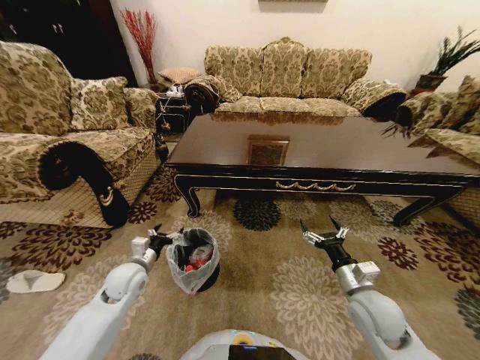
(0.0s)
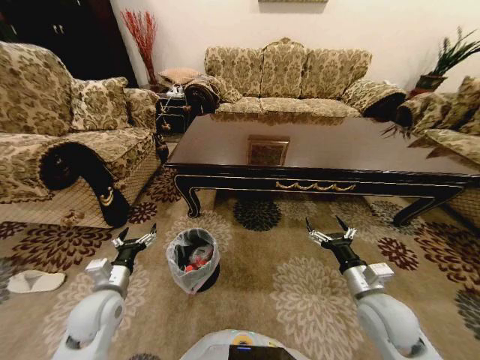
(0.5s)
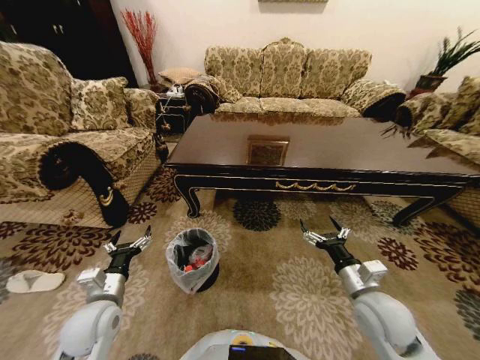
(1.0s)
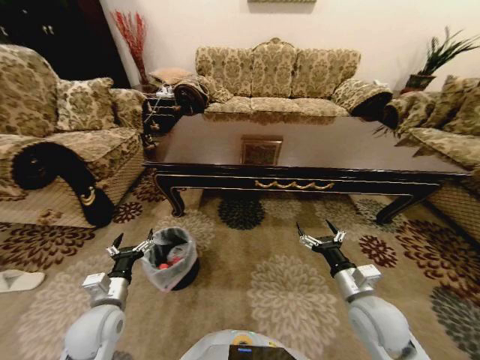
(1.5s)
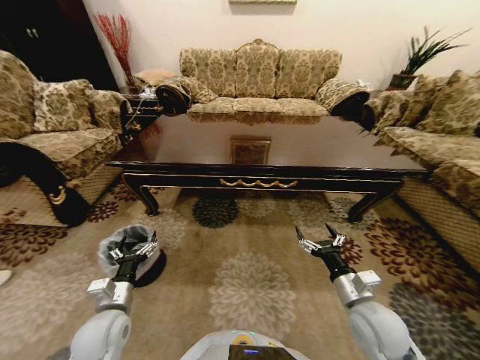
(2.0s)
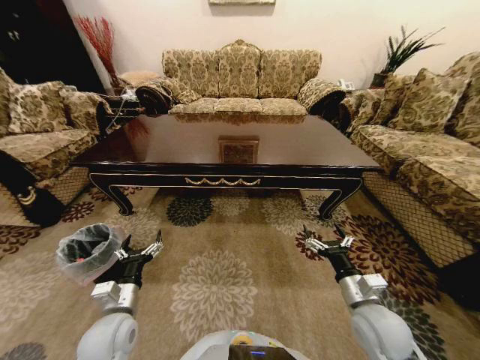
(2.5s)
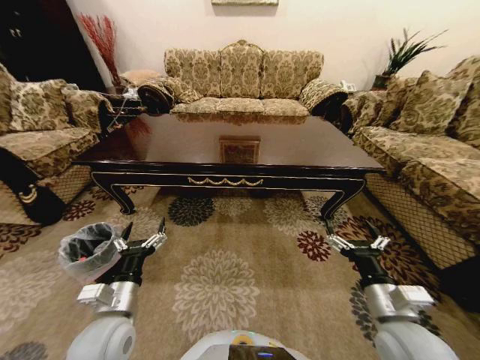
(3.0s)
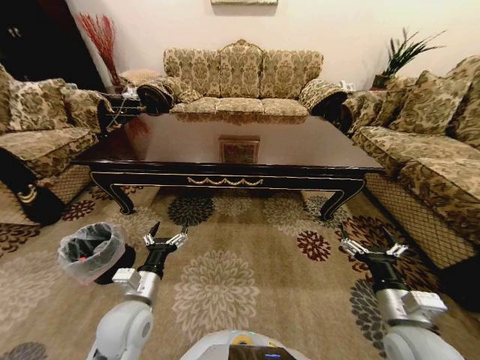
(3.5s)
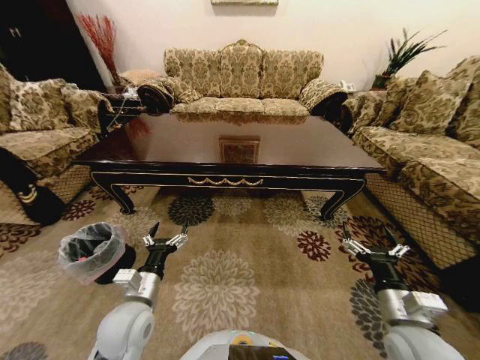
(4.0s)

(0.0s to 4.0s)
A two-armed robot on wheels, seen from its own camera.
Task of the whole recording: Move to the front of the table and place the trash on the table into the trash bin.
0.0s - 2.0s: The left gripper is displaced backward by approximately 10 cm.
2.0s - 4.0s: The left gripper goes approximately 5 cm to the right. The right gripper changes place by some 5 cm.

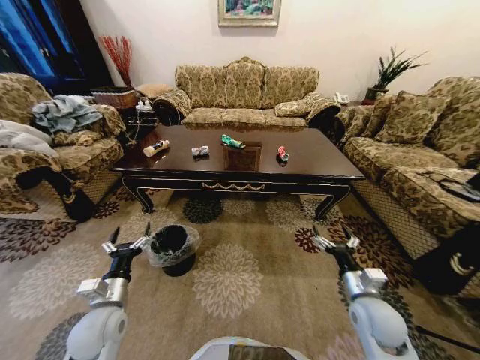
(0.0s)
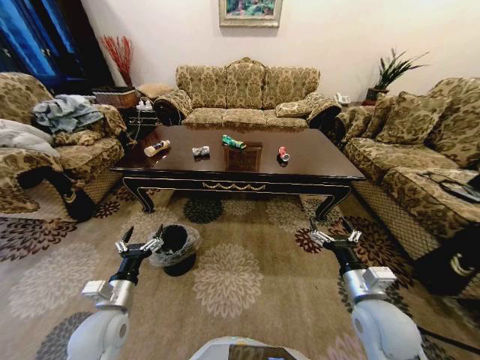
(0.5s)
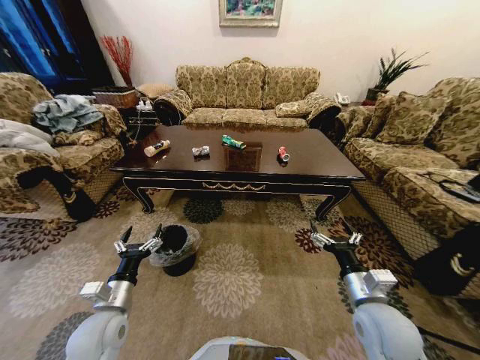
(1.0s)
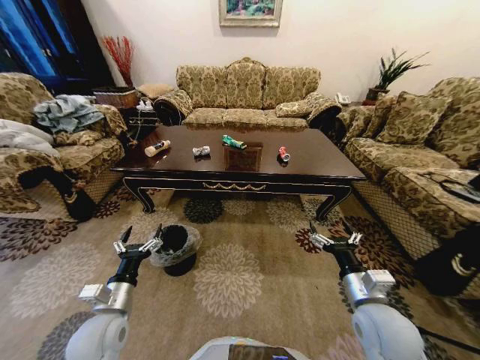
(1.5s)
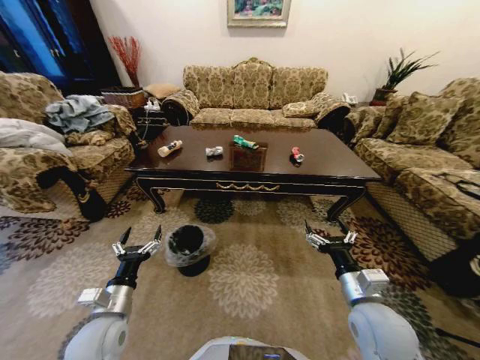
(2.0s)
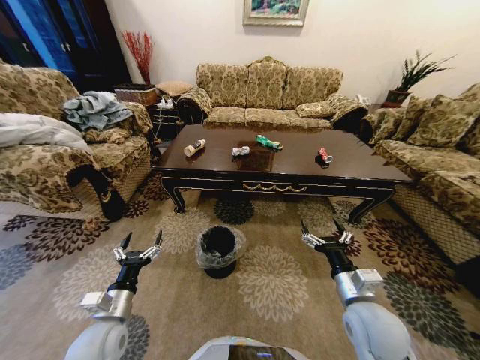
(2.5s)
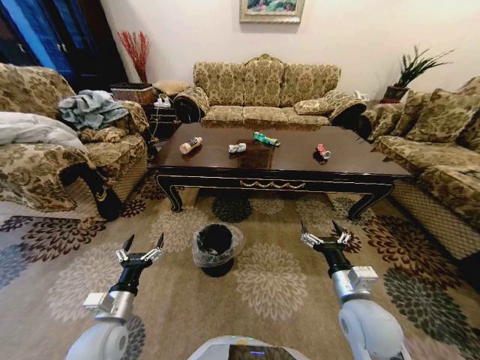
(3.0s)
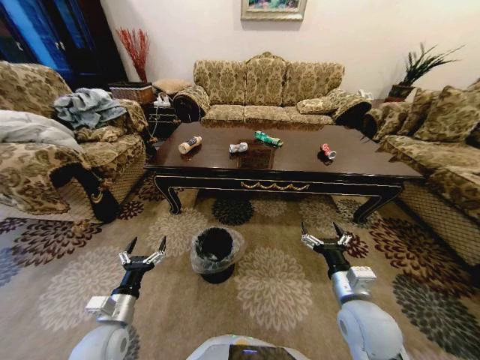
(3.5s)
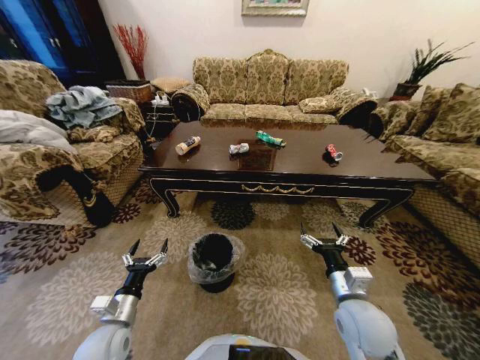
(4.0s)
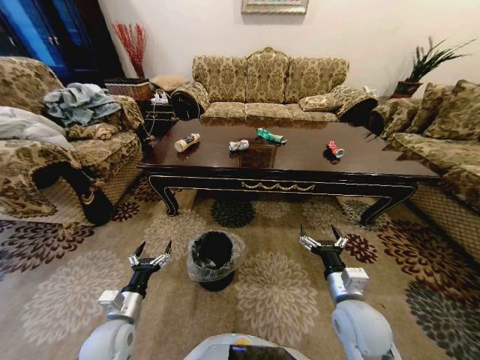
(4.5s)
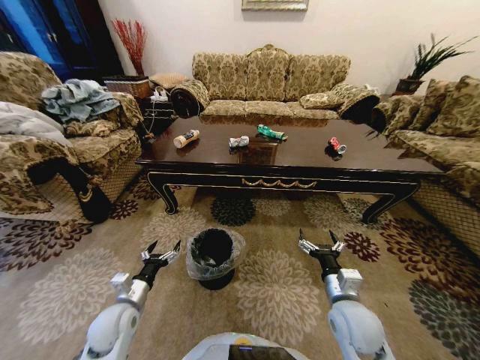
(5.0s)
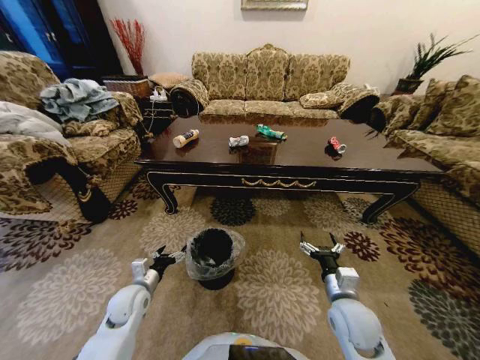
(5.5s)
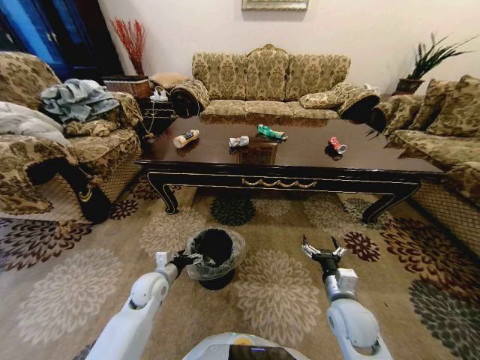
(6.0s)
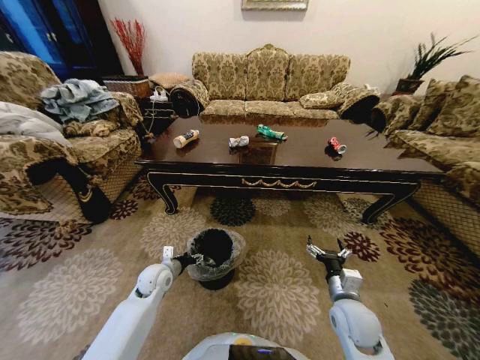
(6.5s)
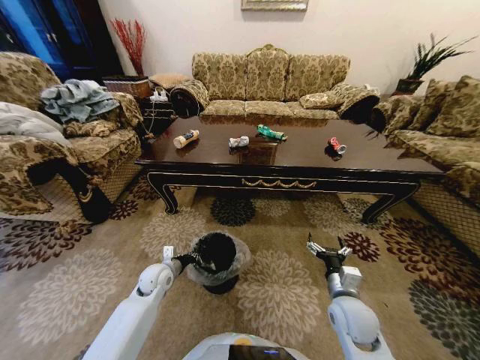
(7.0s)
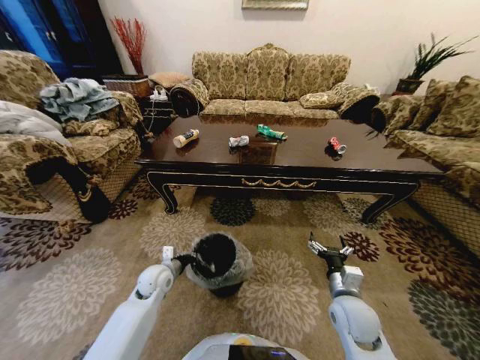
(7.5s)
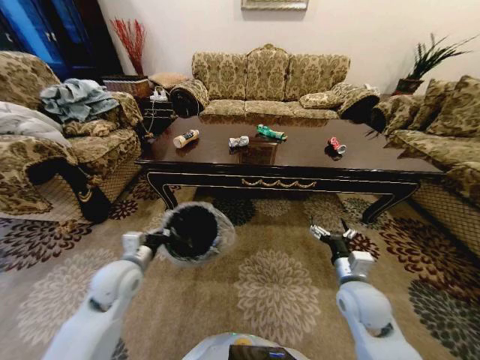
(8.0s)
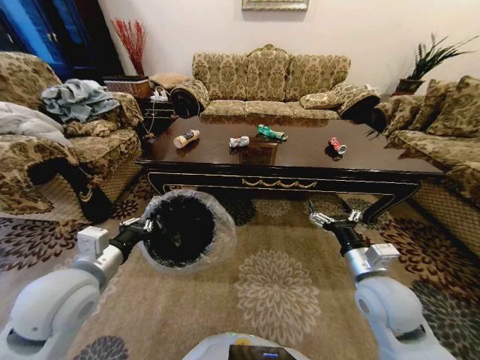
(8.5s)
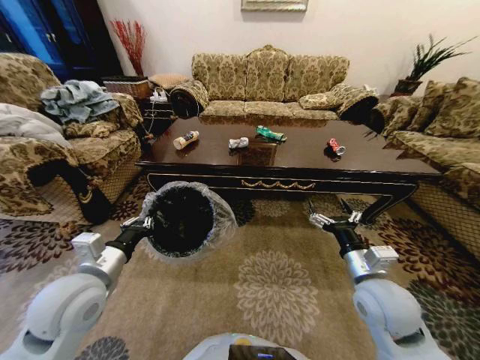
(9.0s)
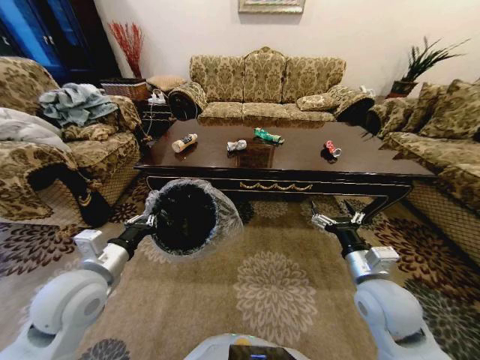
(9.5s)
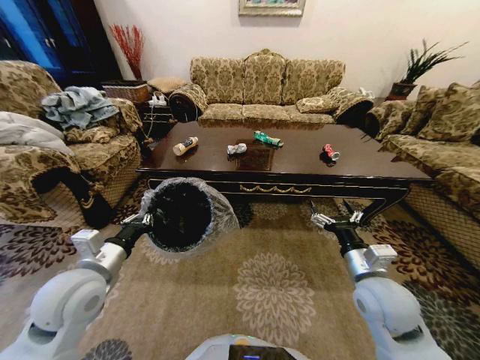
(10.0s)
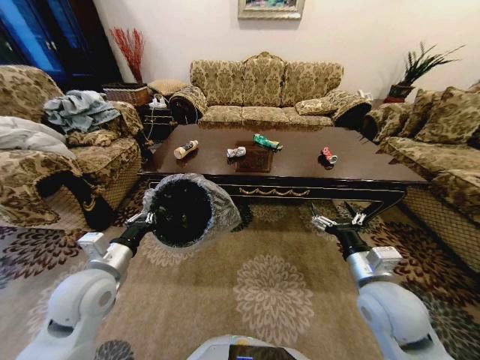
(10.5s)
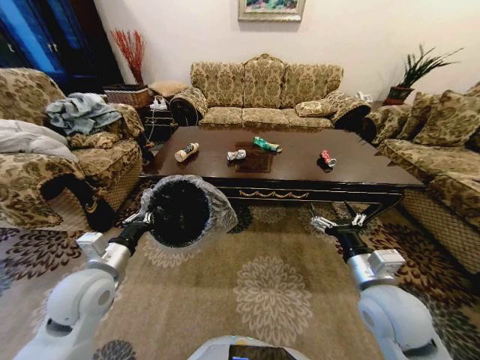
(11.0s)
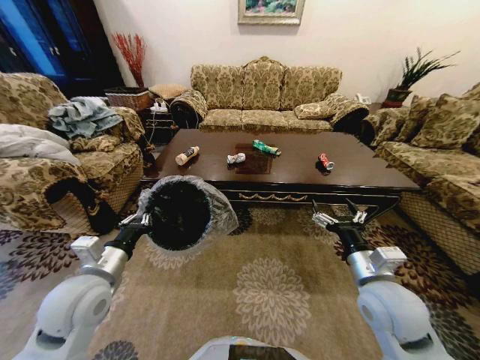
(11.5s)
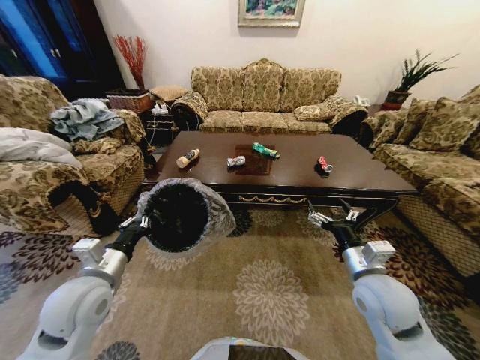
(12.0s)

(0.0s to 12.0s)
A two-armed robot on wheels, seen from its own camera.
Task of the whole recording: Move to the front of the table and place the trash on the table into the trash bin.
4.0s - 6.0s: The right gripper travels downward by approximately 5 cm; the left gripper heads forward, covering some 15 cm.
6.0s - 8.0s: The right gripper travels upward by roughly 5 cm. The left gripper heads upward, covering roughly 15 cm, and closes.
8.0s - 10.0s: The left gripper is displaced upward and backward by some 10 cm. The right gripper moves upward, roughly 5 cm.

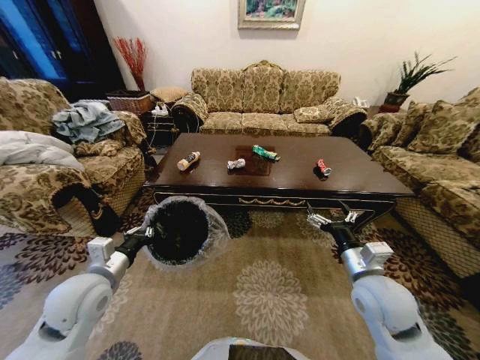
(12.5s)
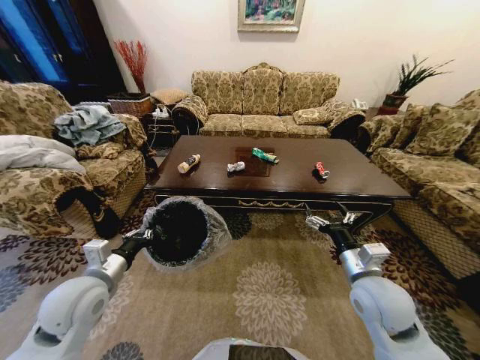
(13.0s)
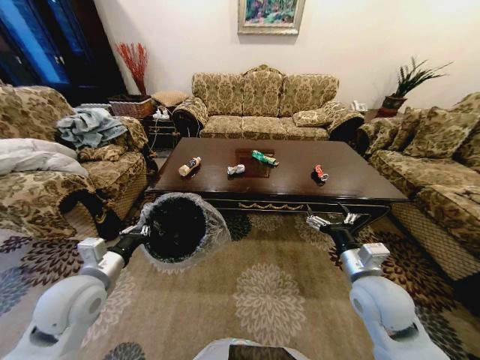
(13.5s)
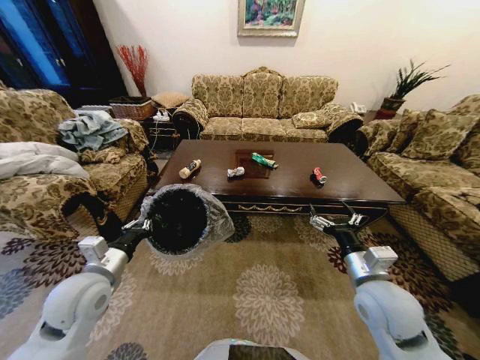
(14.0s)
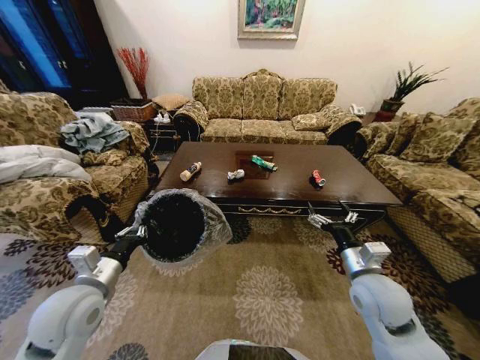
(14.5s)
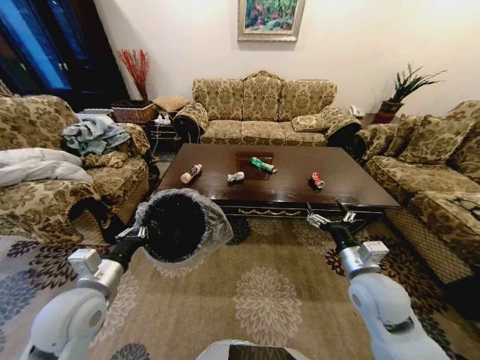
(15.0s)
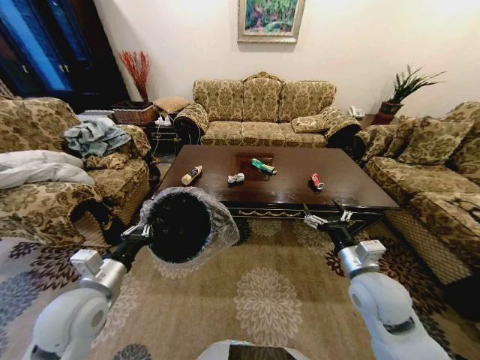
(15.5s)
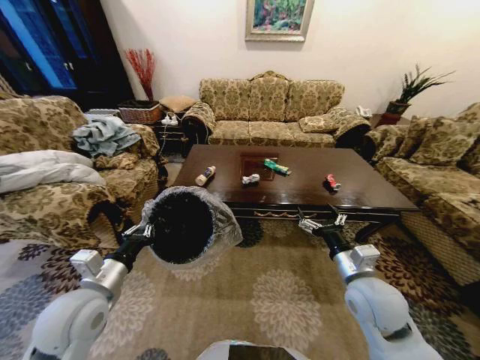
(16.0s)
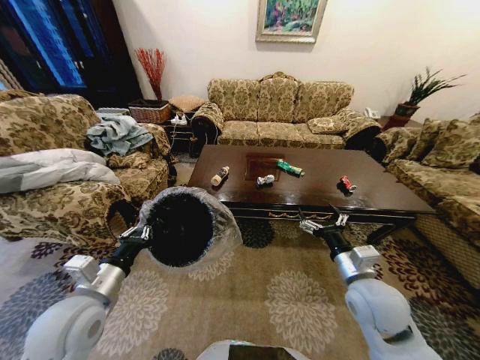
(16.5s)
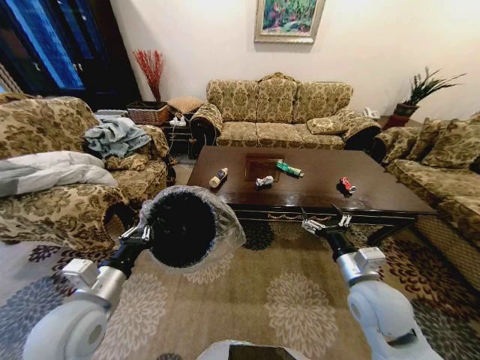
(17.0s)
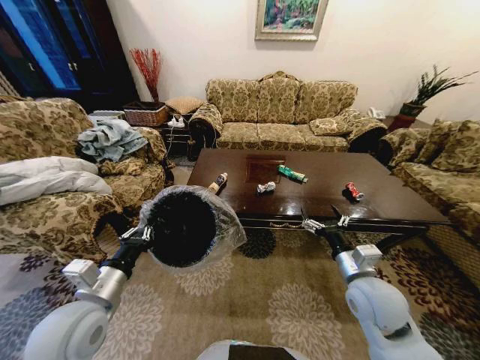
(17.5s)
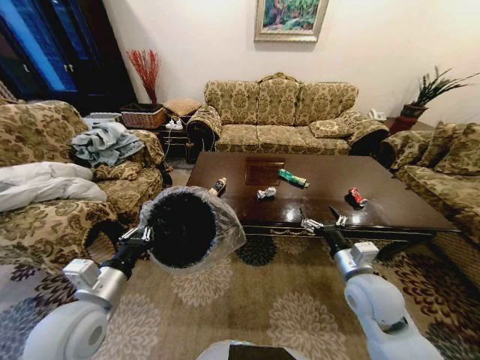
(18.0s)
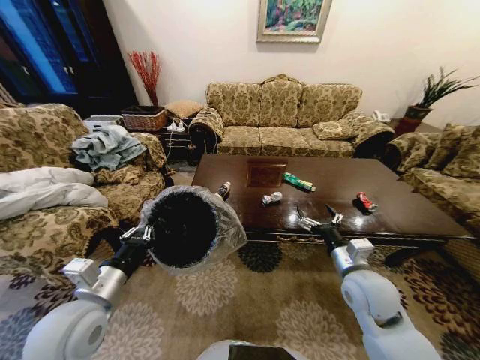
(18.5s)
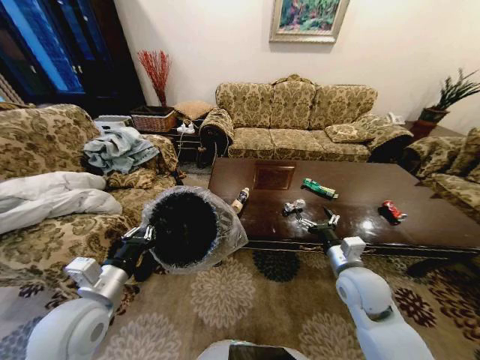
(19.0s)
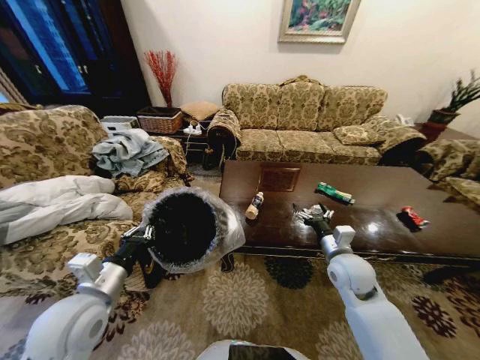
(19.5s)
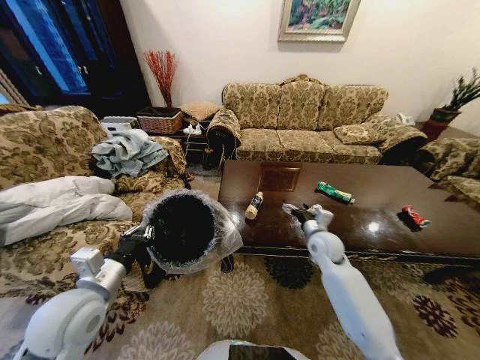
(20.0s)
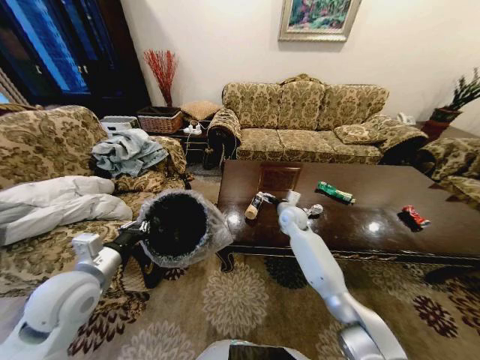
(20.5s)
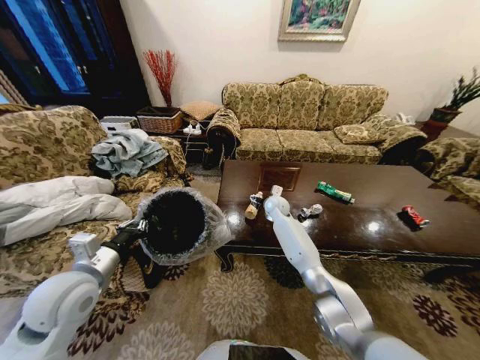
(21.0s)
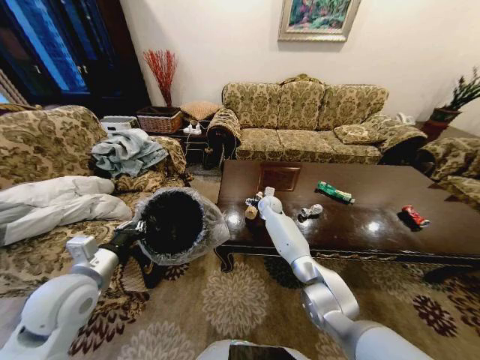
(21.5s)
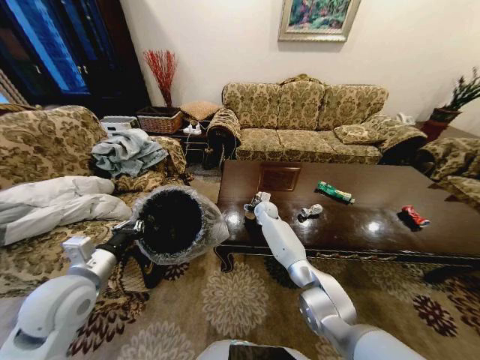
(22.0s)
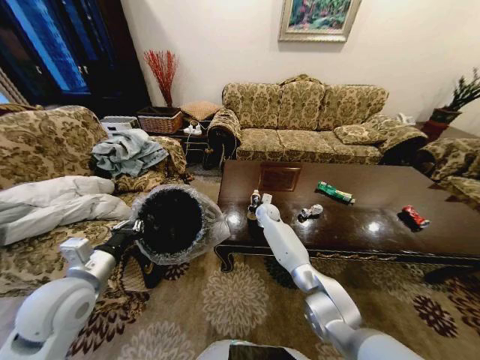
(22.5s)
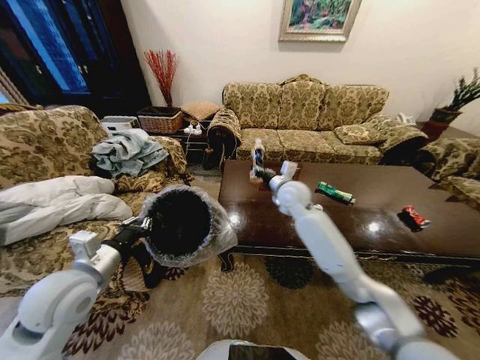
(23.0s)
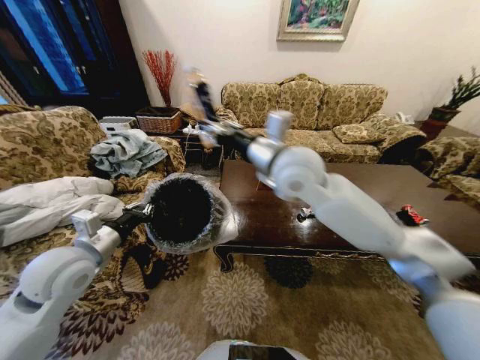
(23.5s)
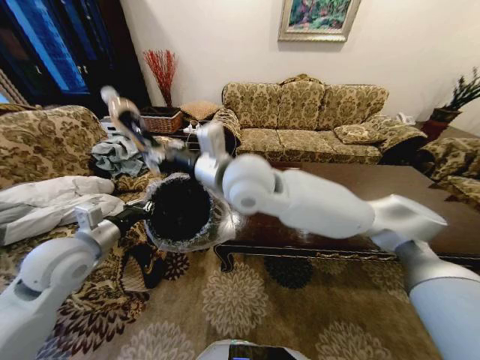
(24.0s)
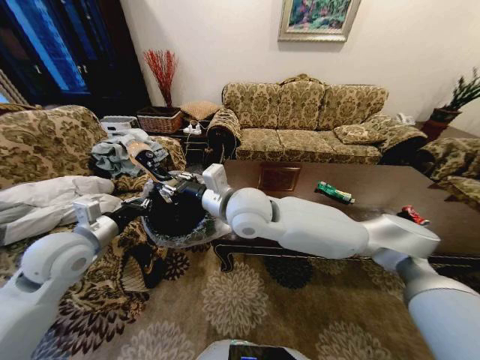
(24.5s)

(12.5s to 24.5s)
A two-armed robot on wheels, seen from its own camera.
Task of the whole recording: Move to the front of the table and place the trash on the table into the trash bin.
18.5s - 20.5s: The left gripper moves approximately 5 cm. The right gripper goes approximately 25 cm forward.
20.5s - 22.5s: The right gripper travels to the left, forward and downward by approximately 10 cm, and closes up.
22.5s - 24.5s: The right gripper shifts roughly 35 cm upward and backward. The left gripper travels forward by some 5 cm.
